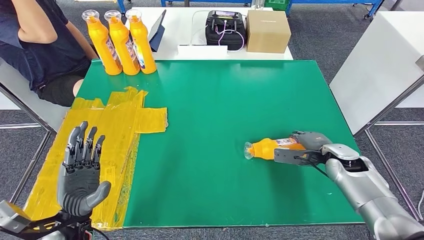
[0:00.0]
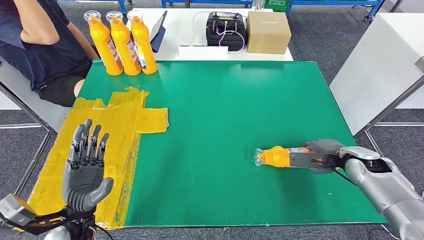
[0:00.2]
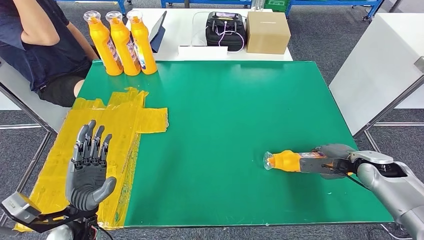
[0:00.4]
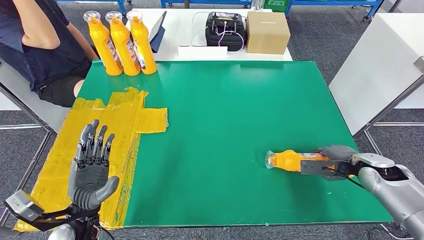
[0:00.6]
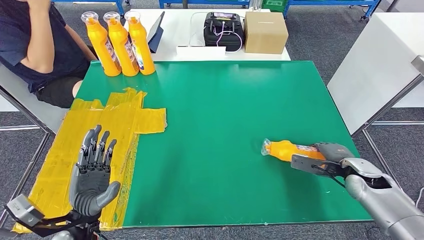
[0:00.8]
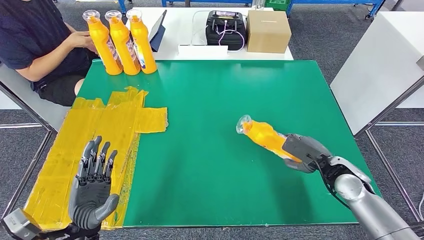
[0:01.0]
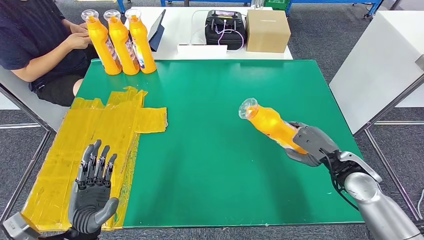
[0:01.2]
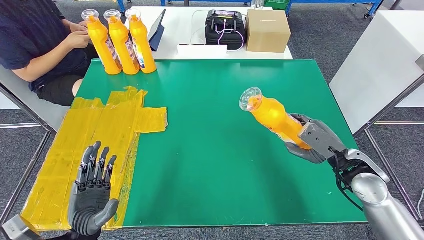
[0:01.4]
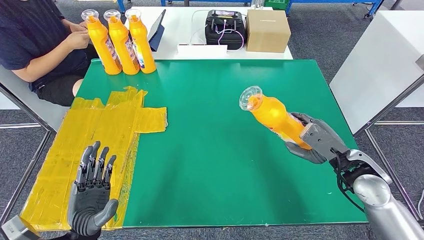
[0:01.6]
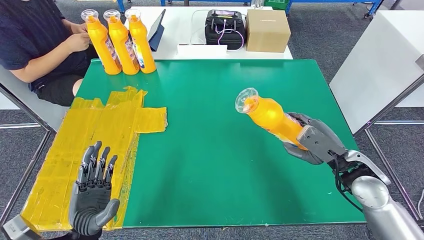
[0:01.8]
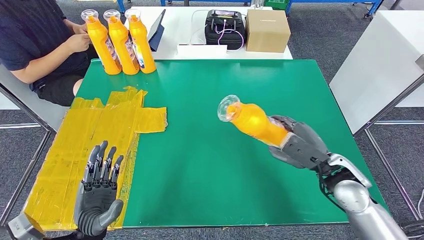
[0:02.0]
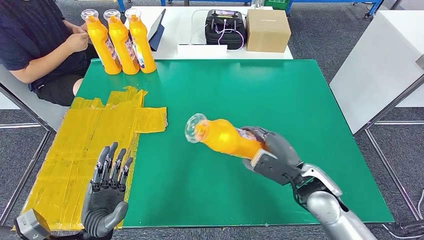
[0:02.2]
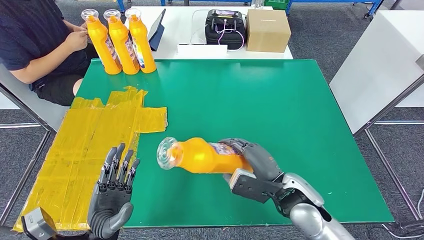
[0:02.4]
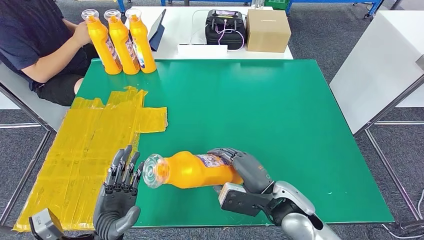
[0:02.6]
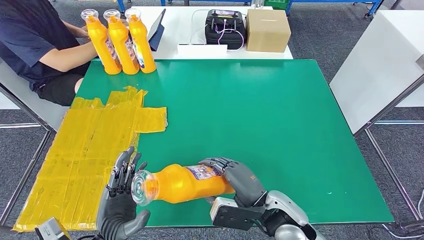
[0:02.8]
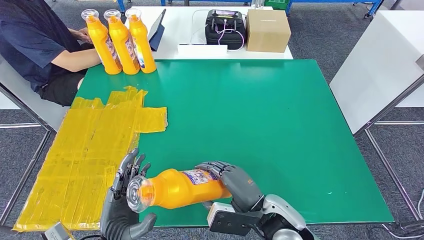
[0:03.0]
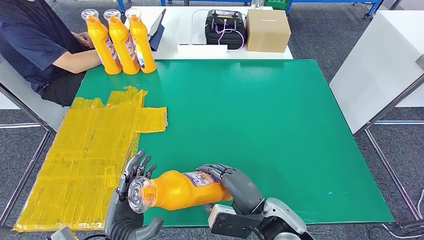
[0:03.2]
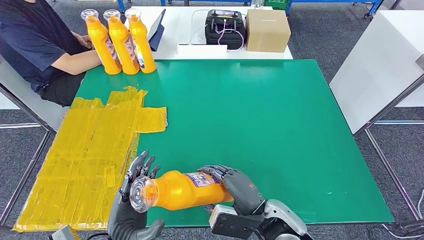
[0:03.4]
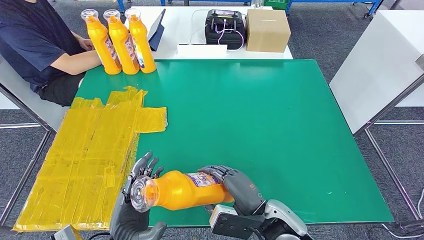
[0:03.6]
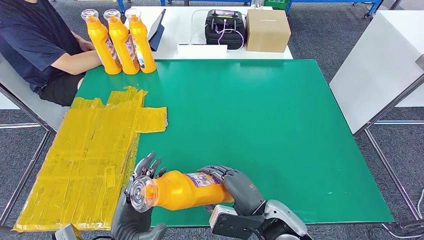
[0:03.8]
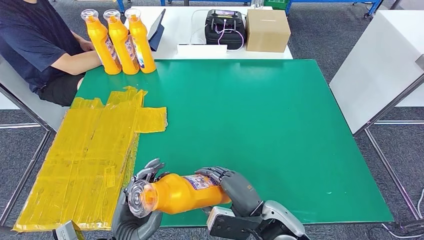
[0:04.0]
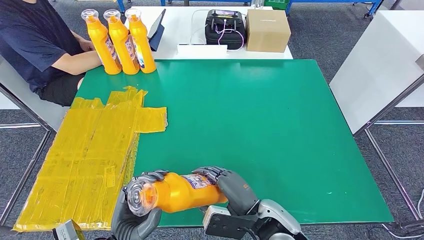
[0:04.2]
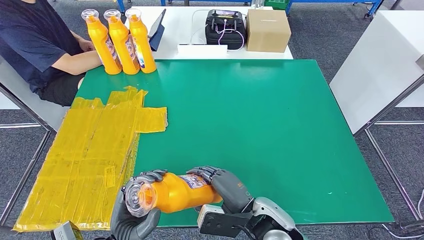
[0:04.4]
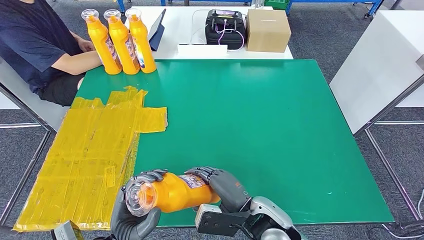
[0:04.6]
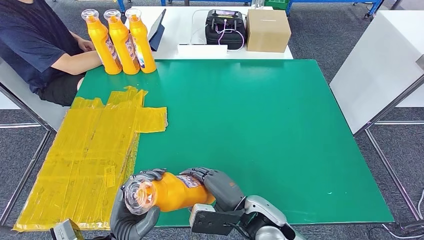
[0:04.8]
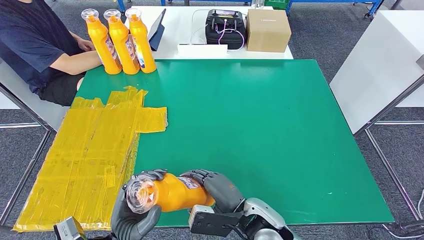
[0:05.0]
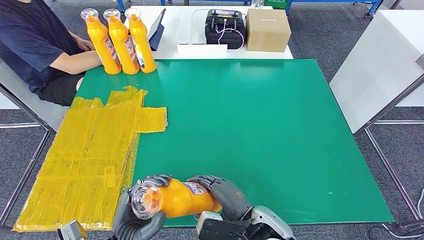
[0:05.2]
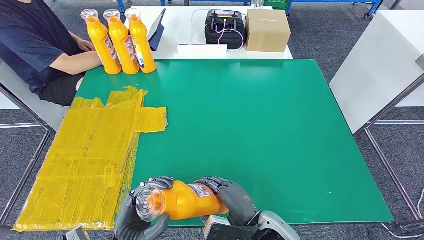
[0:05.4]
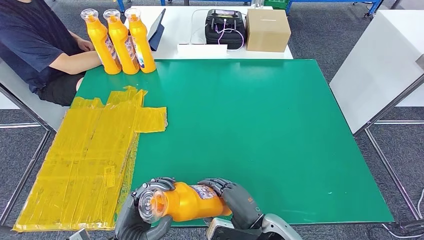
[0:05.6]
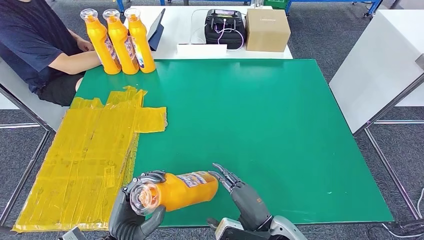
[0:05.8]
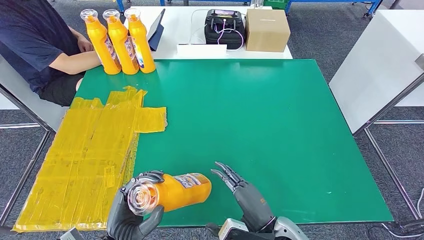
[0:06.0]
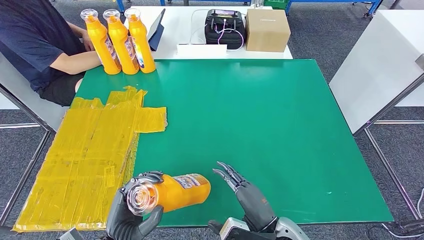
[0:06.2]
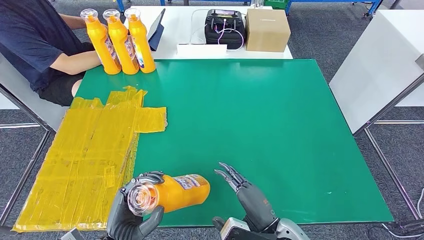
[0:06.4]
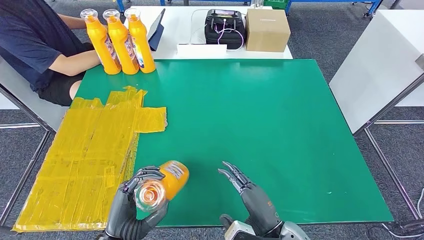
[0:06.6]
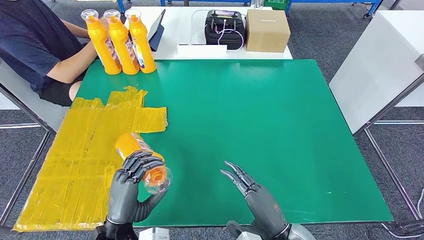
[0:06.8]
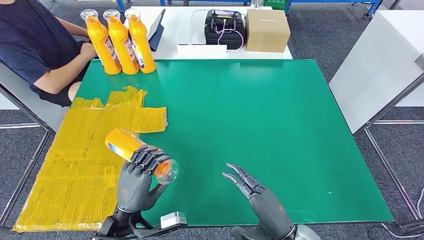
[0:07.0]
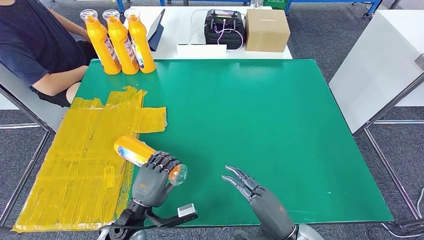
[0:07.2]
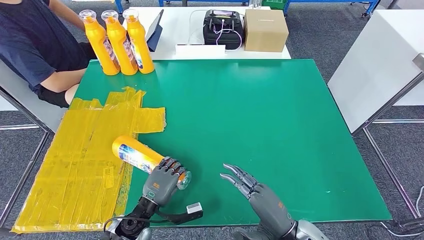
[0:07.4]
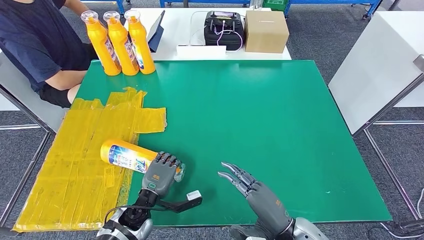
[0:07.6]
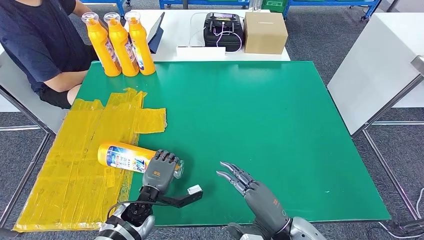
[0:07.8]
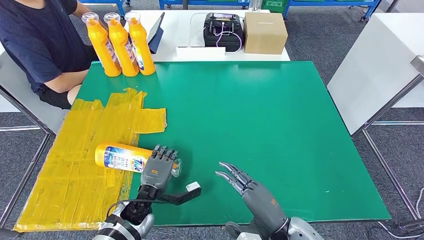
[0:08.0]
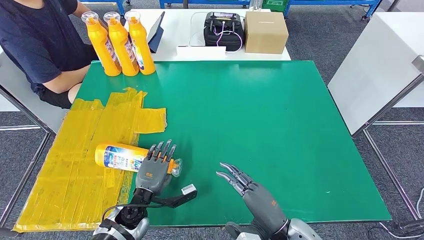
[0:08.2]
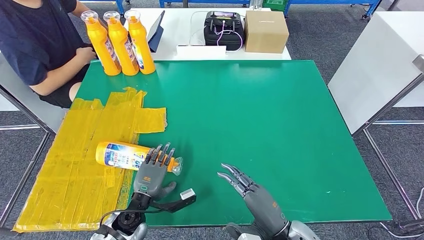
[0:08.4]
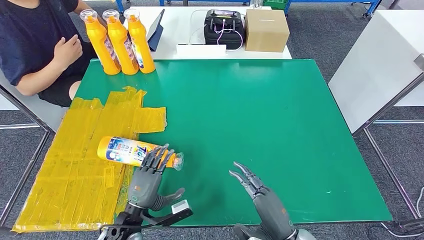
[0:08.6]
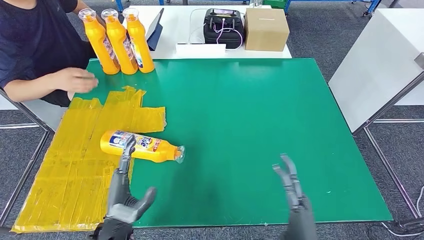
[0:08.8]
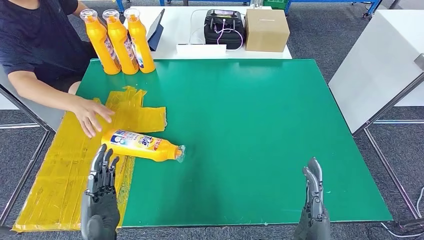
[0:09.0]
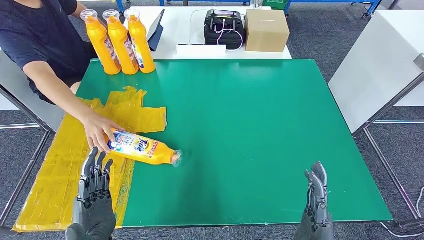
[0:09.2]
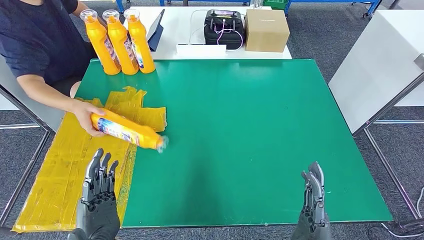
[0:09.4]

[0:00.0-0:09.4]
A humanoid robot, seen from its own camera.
Step, 0:00.0 to 0:03.8: Pick up the fast-moving consumer goods bottle from the table.
Step, 0:04.0 to 0:09.4: Flip the fast-moving consumer goods bottle to the front side.
0:00.0 to 0:01.6: The right hand goes approximately 10 cm upward and backward, and moves about 10 cm to the right and comes back.
0:03.2 to 0:04.8: The hands stay close to where they were, moving slightly.
0:04.8 to 0:06.2: The right hand goes some 5 cm to the right.

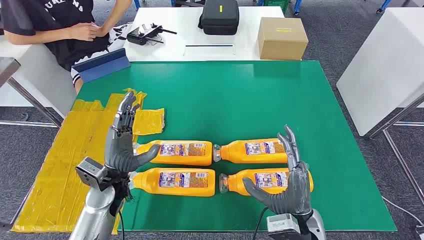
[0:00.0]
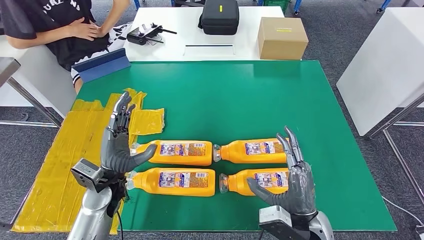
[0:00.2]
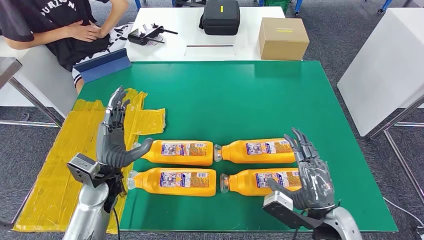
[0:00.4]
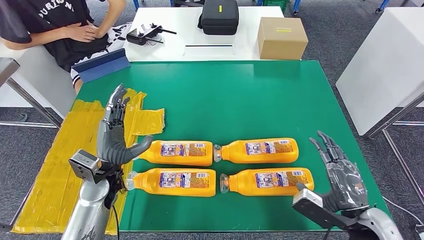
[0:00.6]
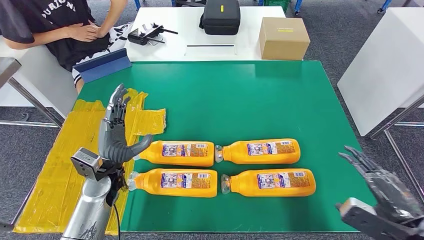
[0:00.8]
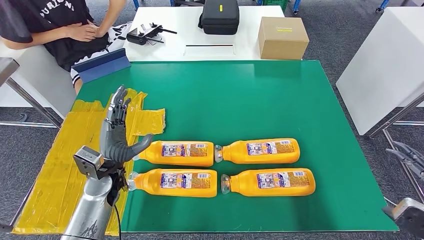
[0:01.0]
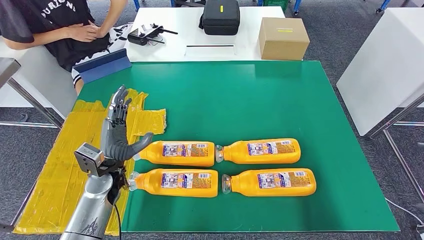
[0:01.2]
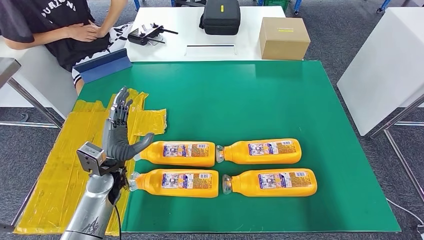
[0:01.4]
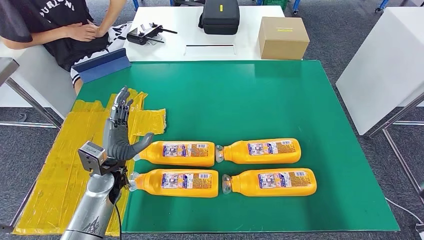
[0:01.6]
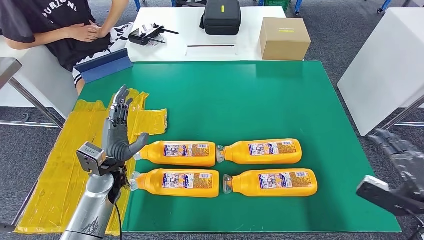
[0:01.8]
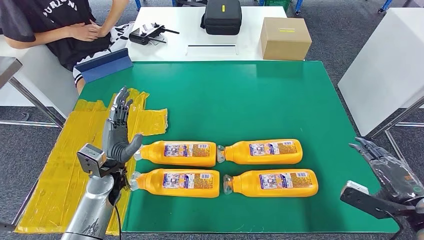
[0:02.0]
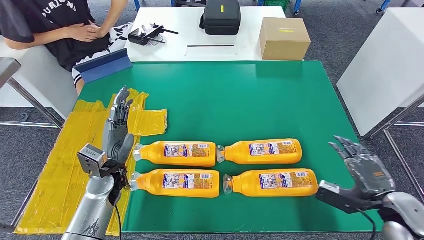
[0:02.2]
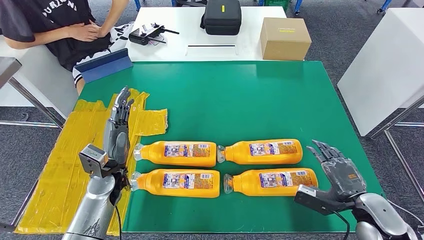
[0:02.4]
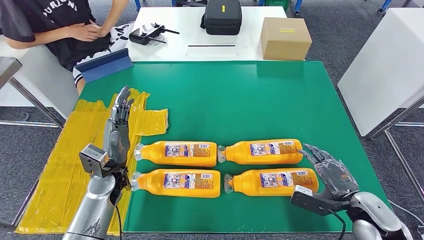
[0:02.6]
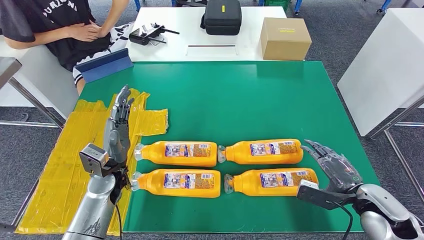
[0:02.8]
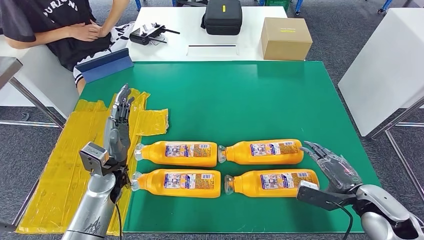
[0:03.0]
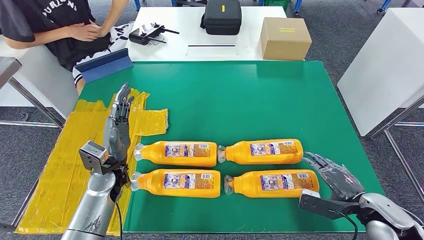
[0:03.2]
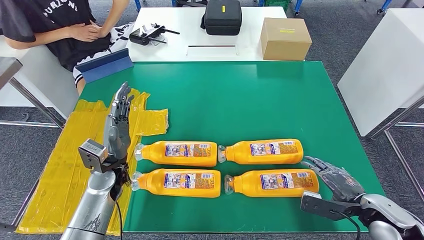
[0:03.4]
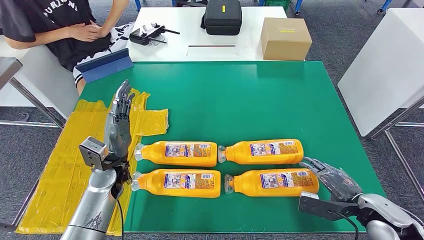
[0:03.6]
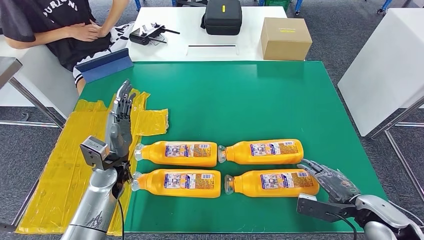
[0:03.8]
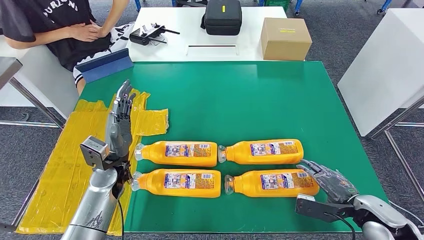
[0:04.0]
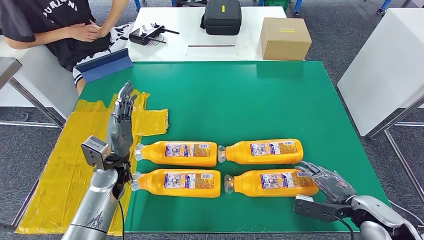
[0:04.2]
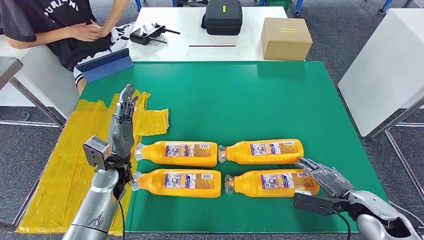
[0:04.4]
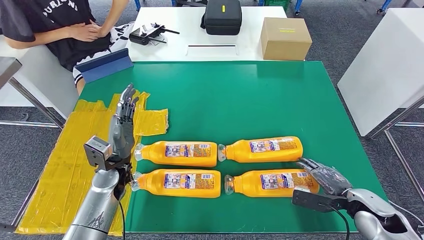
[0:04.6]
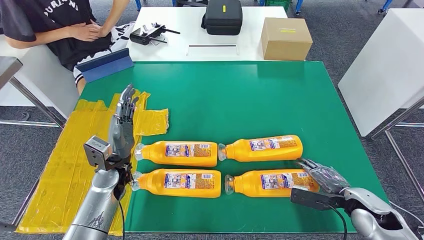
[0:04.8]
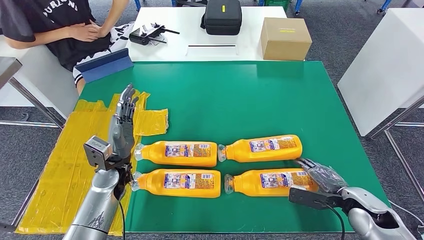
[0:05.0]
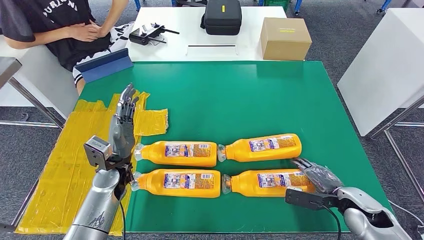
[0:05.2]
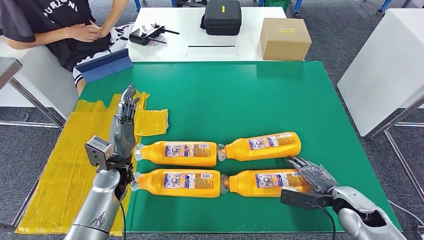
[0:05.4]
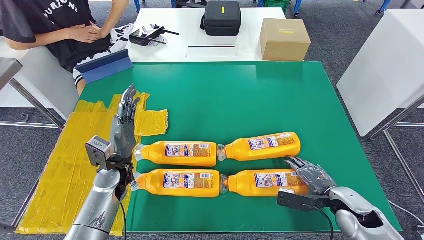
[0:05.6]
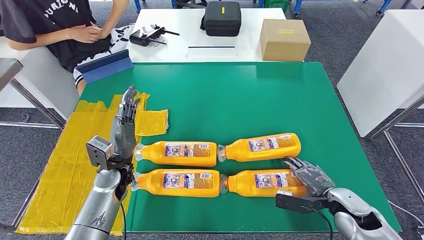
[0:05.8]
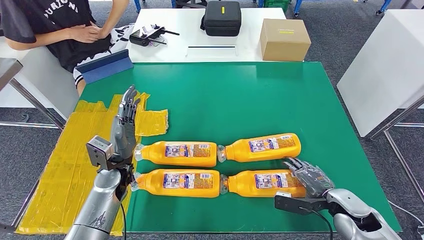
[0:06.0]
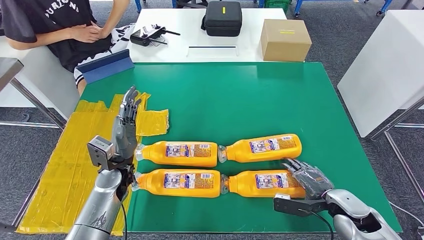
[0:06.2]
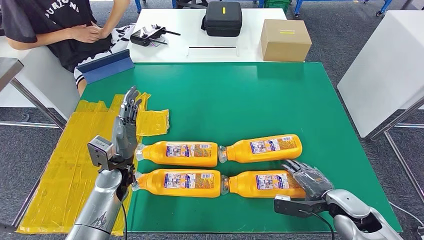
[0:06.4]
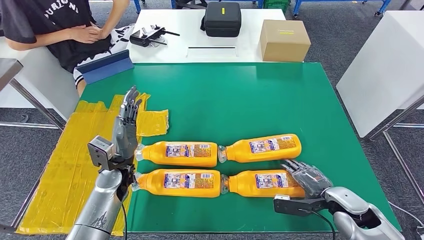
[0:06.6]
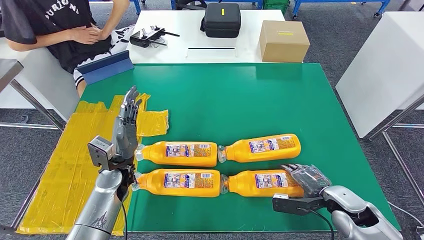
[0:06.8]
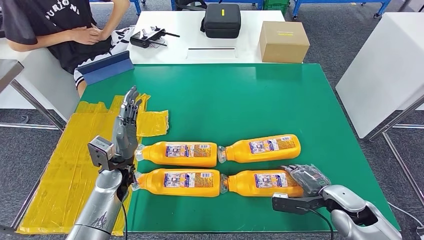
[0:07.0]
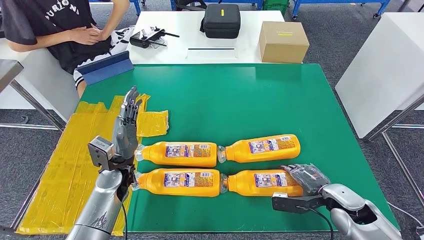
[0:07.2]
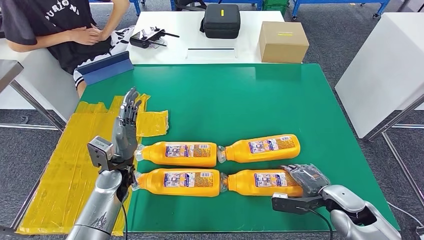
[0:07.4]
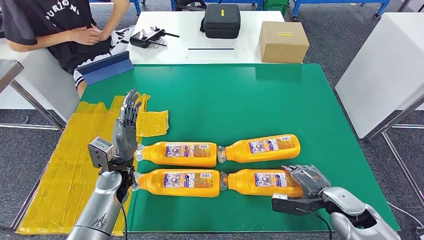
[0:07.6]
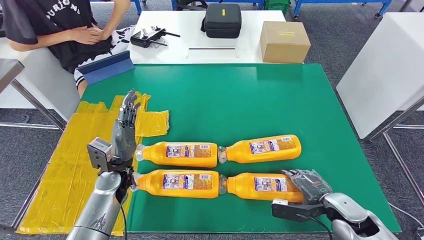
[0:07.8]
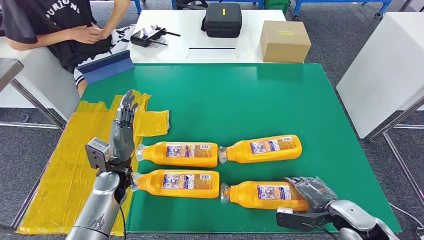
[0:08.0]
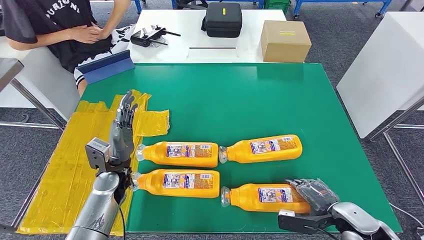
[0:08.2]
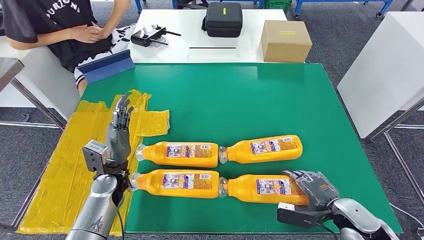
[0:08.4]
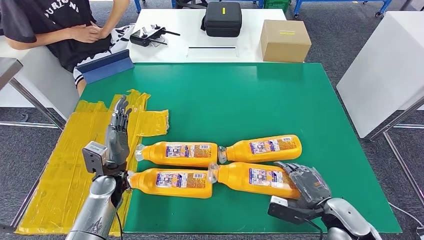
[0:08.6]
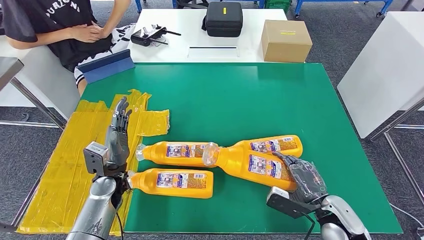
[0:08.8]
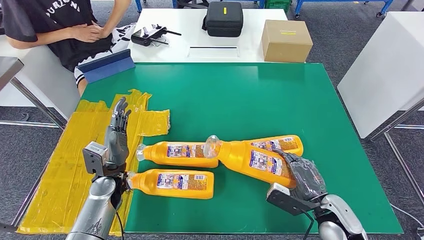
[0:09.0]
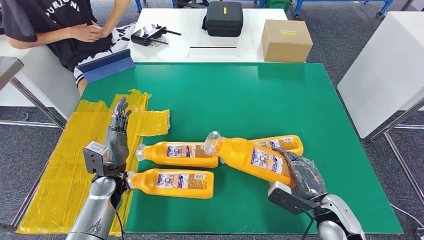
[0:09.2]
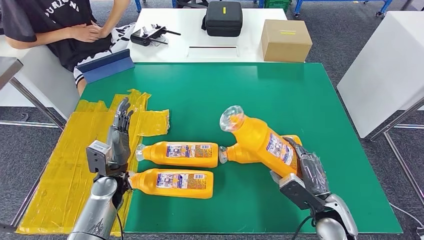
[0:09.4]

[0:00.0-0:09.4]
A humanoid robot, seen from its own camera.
0:01.6 to 0:03.2: The right hand travels downward, to the left and forward by about 20 cm.
0:03.2 to 0:04.8: The right hand changes place by roughly 5 cm.
0:04.8 to 0:07.8: There are only small adjustments of the hands.
0:07.8 to 0:09.4: The right hand ends up roughly 5 cm from where it was.
